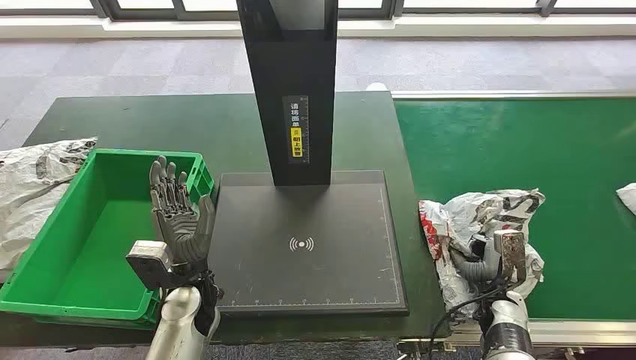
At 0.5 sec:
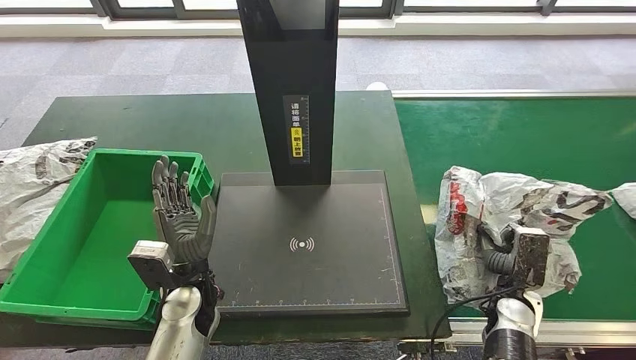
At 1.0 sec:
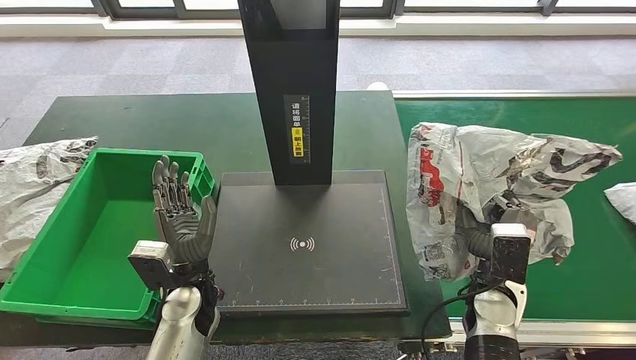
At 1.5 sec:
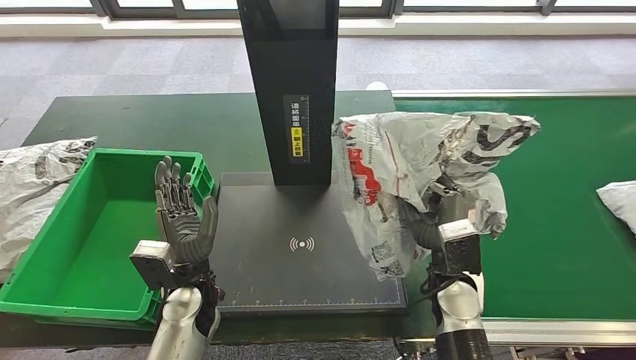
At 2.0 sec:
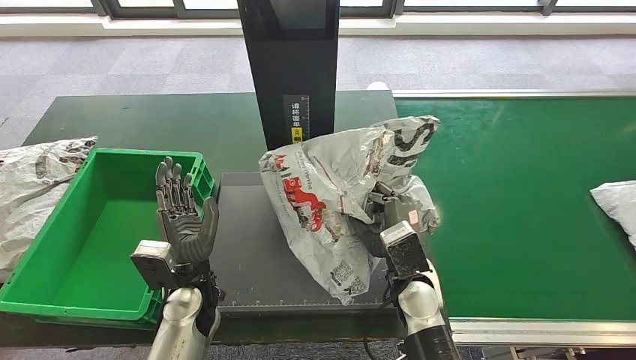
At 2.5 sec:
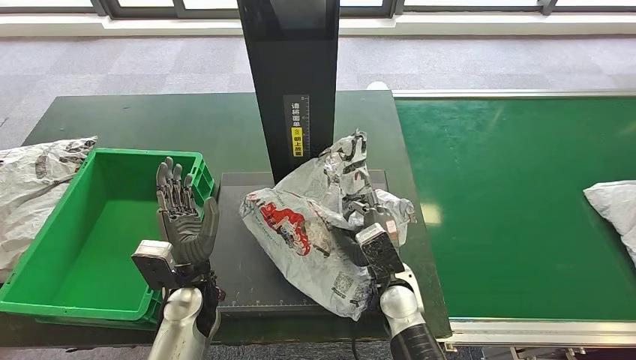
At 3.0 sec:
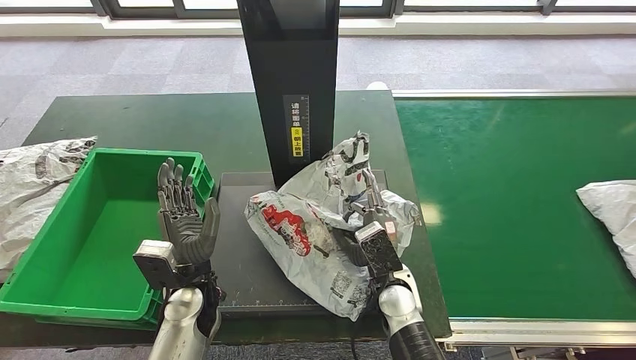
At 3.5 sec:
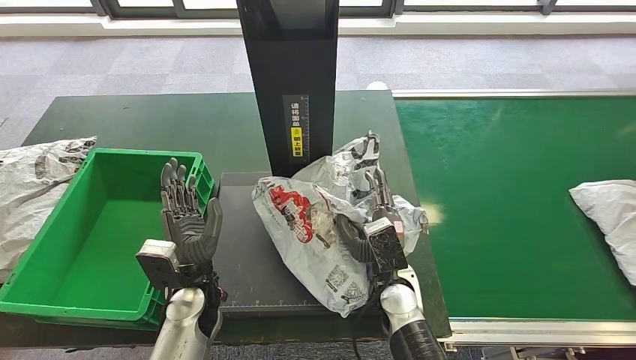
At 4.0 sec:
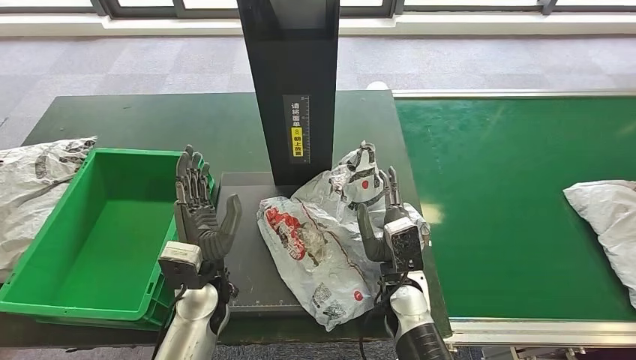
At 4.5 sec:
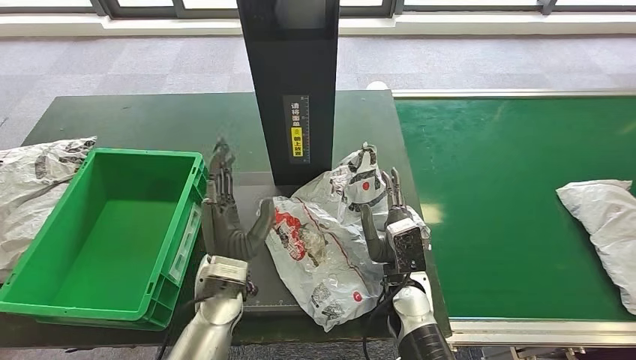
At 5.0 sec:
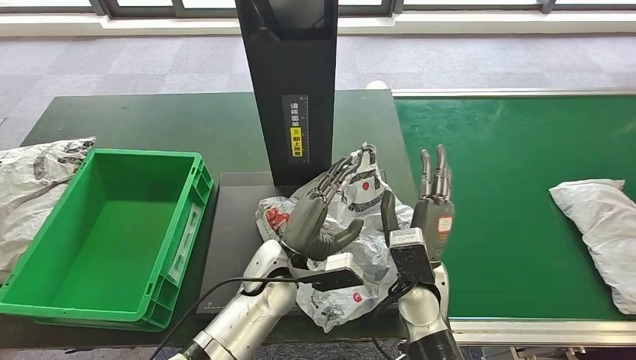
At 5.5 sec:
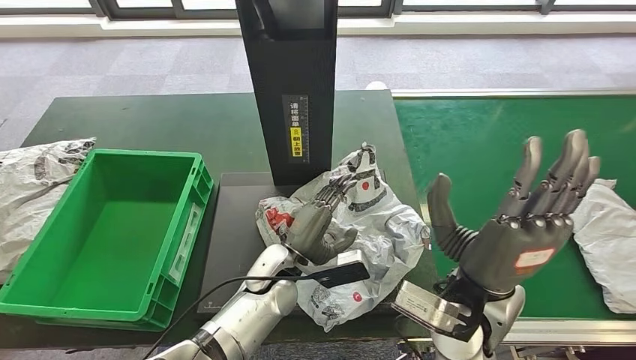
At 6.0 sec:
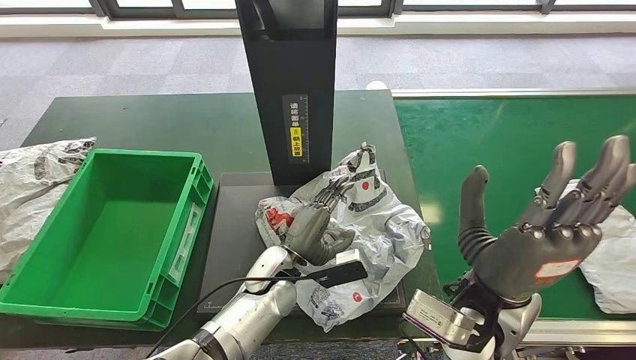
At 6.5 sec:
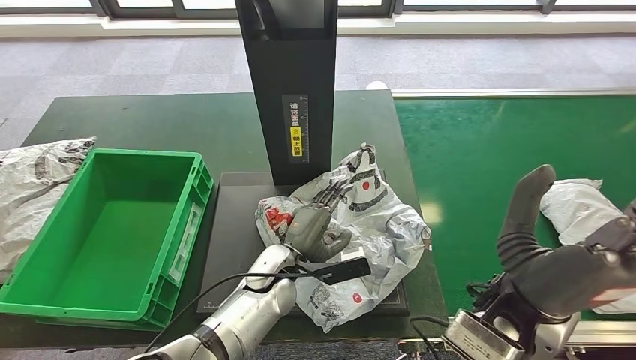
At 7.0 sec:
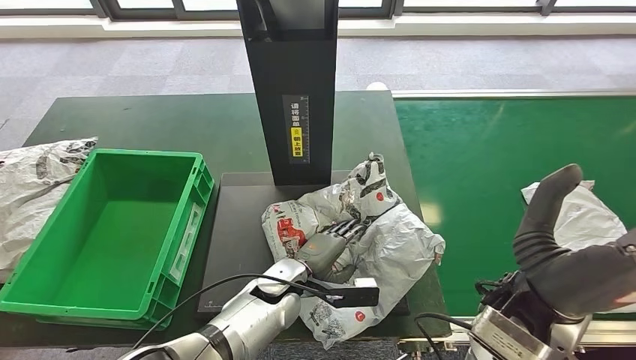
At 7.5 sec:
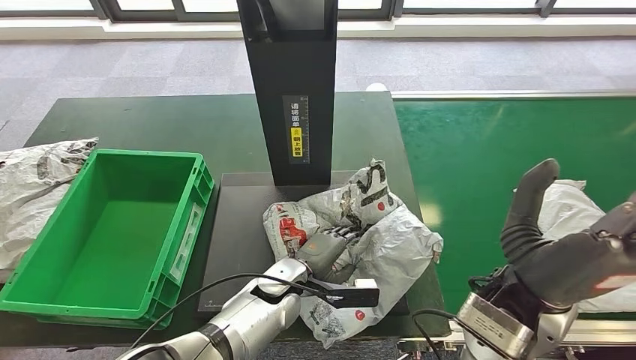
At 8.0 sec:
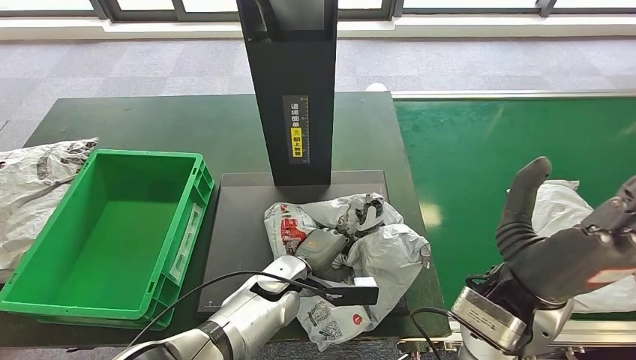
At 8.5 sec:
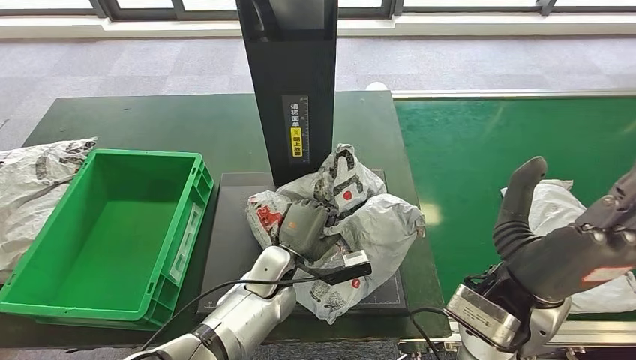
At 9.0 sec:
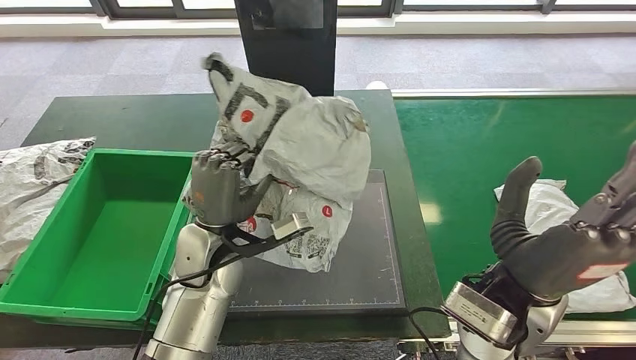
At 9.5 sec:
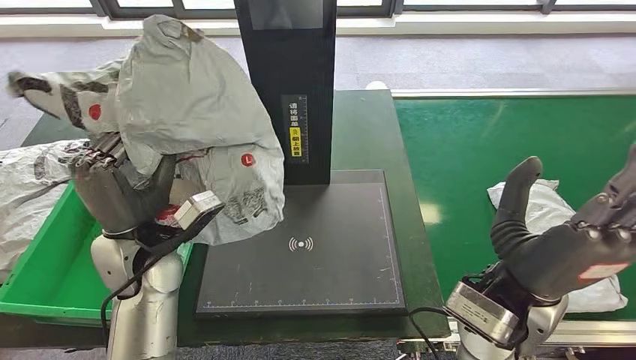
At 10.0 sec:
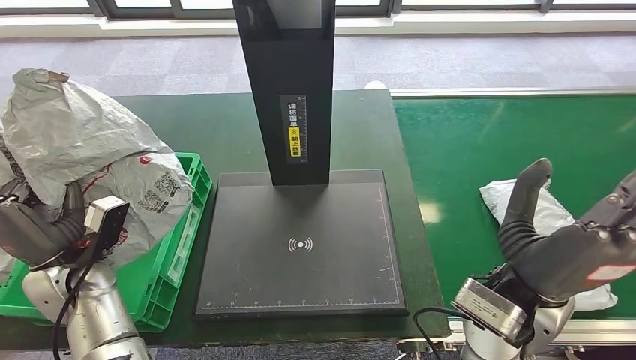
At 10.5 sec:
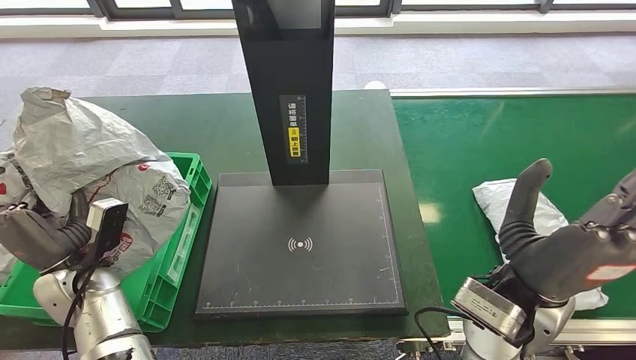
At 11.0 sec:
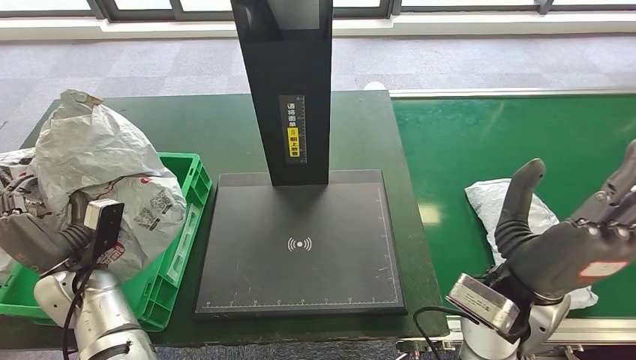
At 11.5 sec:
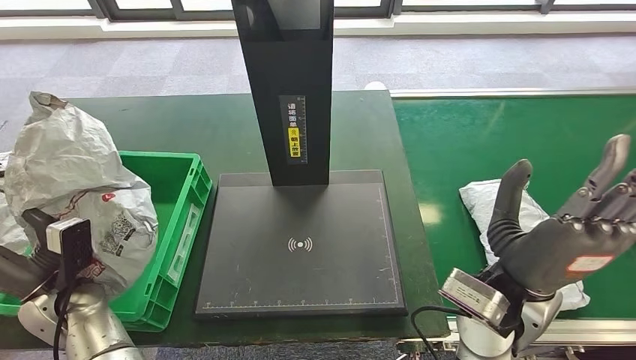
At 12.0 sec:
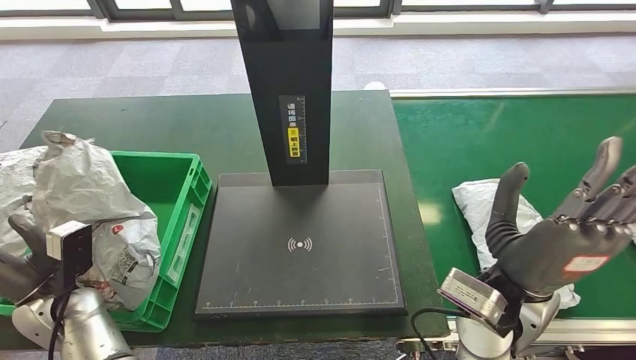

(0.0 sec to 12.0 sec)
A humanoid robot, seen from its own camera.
Step, 0.0 sec - 1.0 sec: Take the parcel off the conveyor belt.
Step, 1.5 sec - 4.5 sec: Place the parcel onto the inbound machine.
Step, 5.0 sec - 8.5 sec: Pick up the parcel from the inbound machine.
2.0 sec - 4.0 sec: The hands move only a little.

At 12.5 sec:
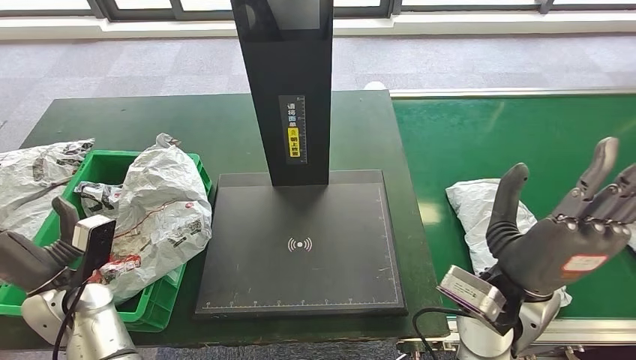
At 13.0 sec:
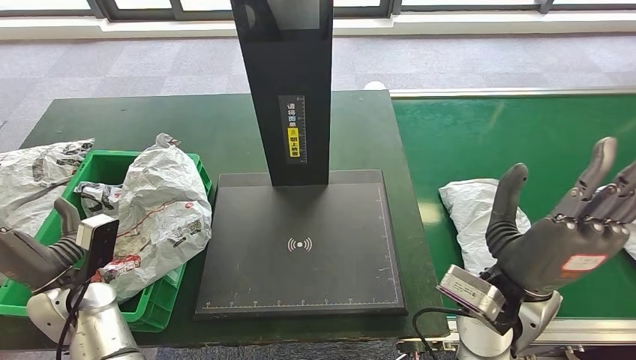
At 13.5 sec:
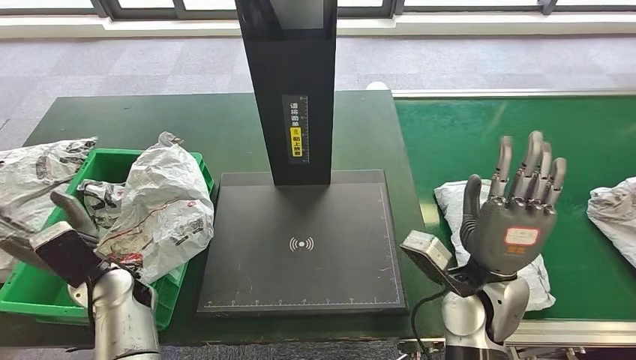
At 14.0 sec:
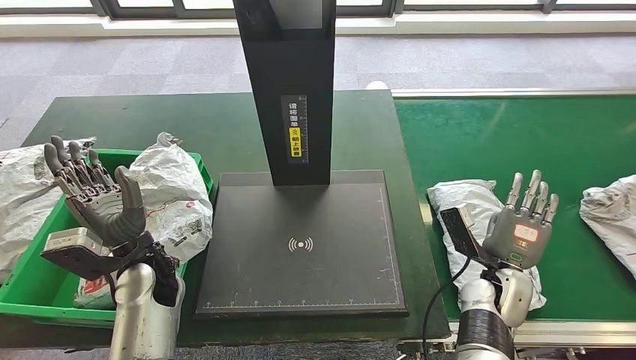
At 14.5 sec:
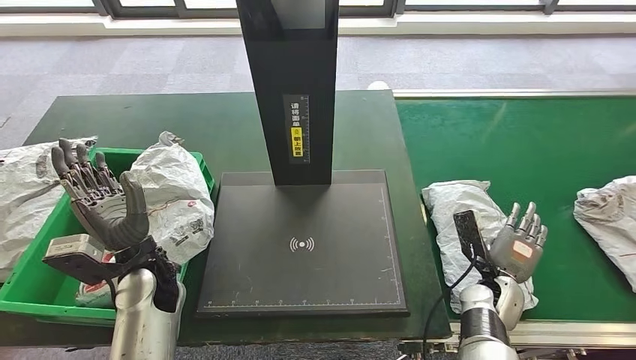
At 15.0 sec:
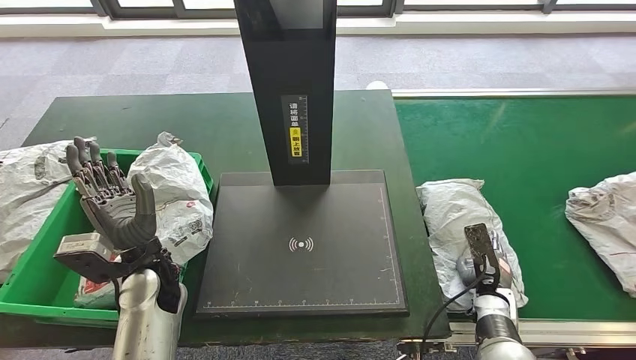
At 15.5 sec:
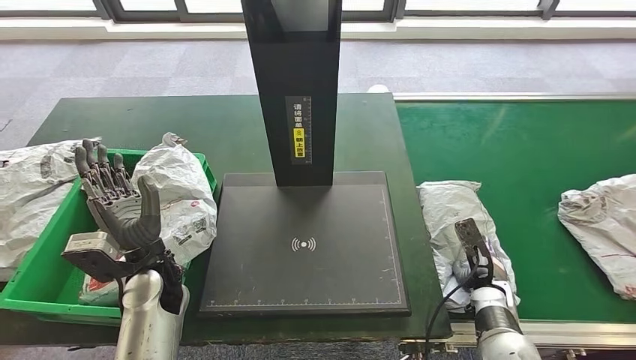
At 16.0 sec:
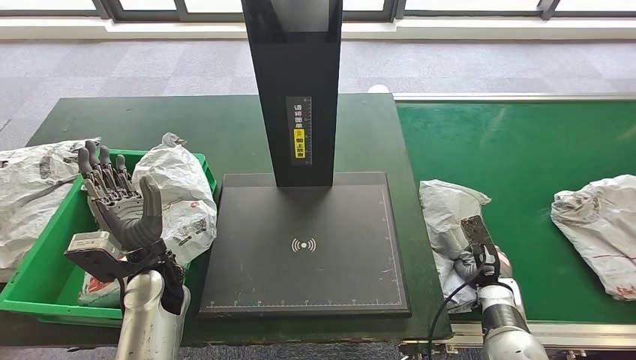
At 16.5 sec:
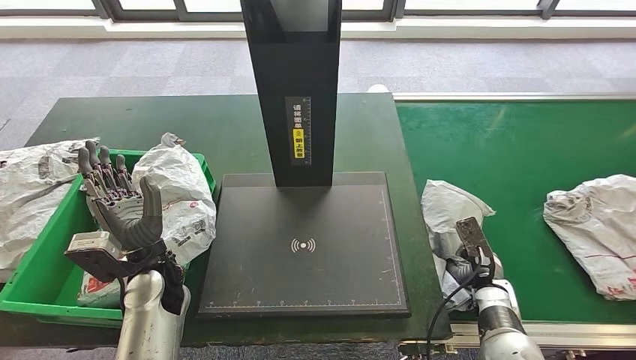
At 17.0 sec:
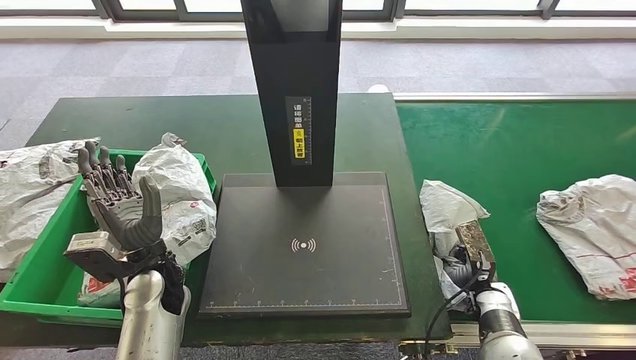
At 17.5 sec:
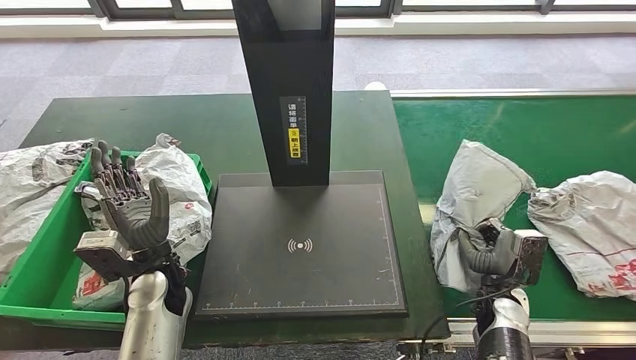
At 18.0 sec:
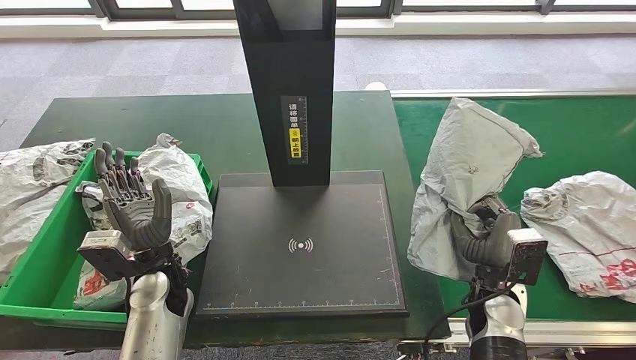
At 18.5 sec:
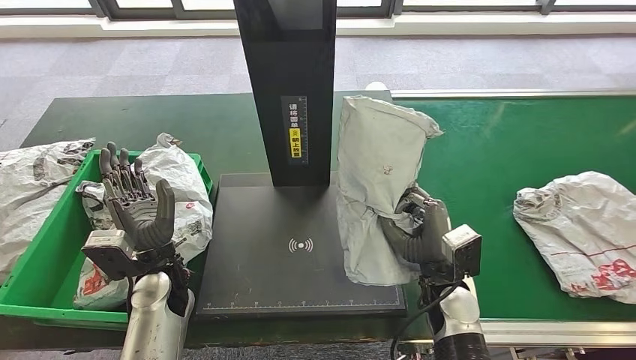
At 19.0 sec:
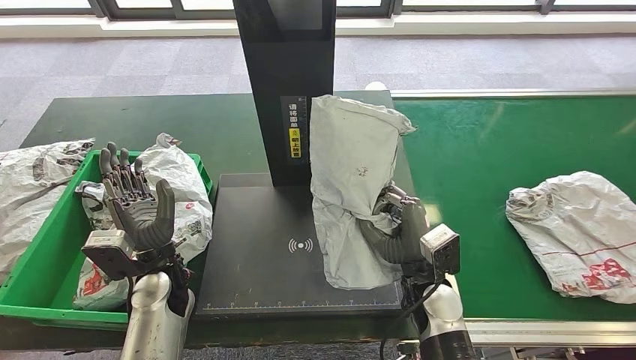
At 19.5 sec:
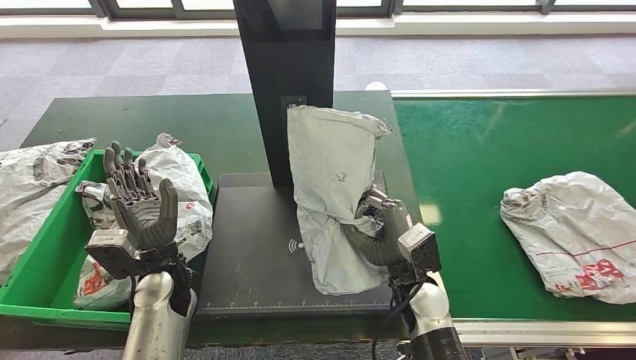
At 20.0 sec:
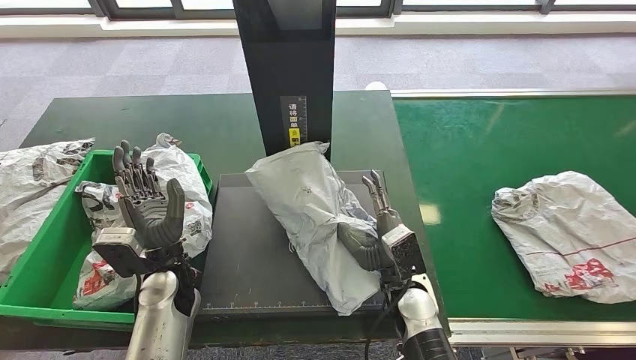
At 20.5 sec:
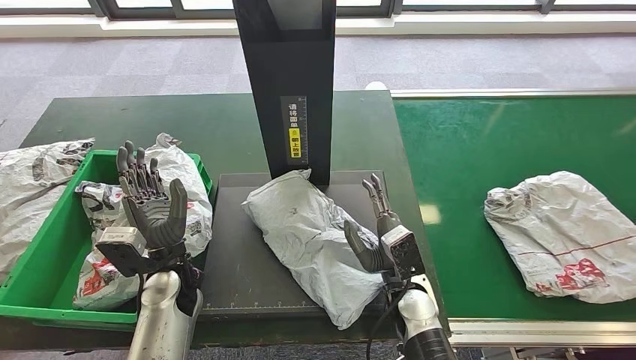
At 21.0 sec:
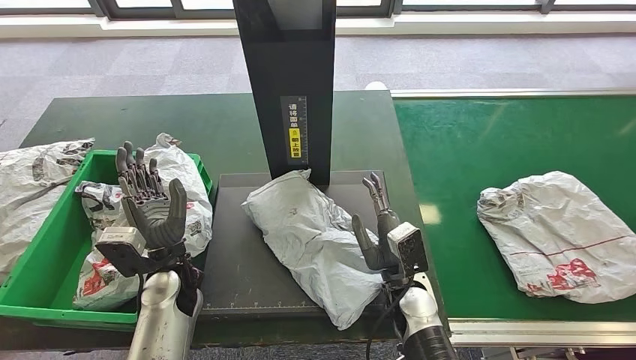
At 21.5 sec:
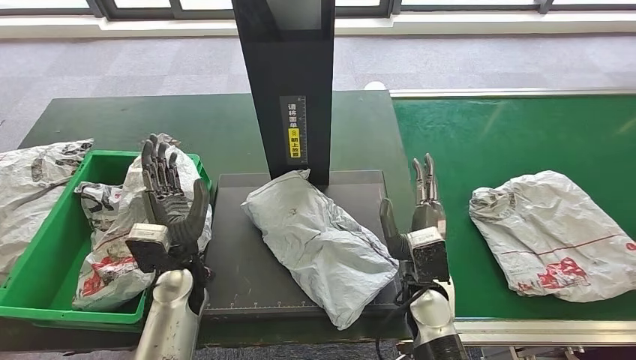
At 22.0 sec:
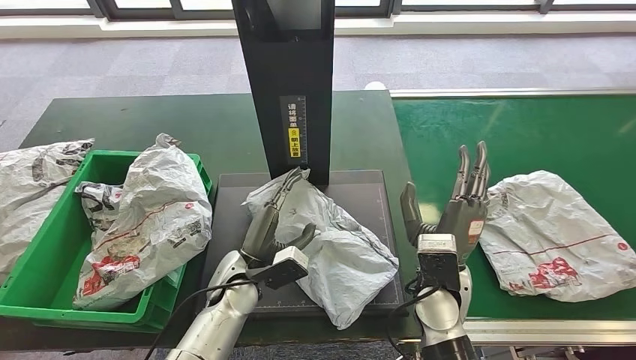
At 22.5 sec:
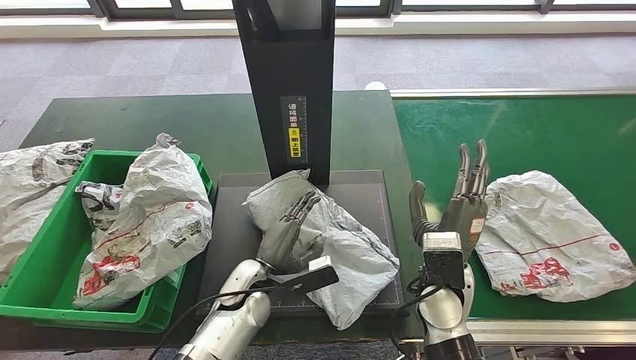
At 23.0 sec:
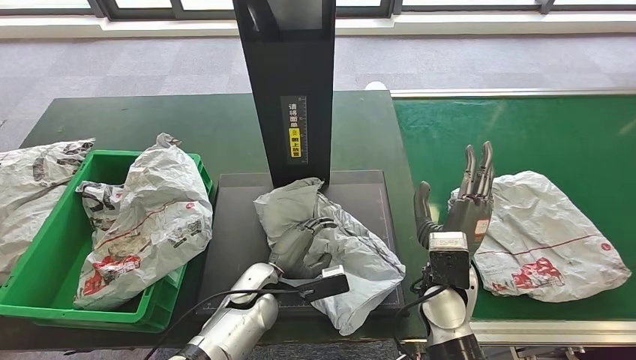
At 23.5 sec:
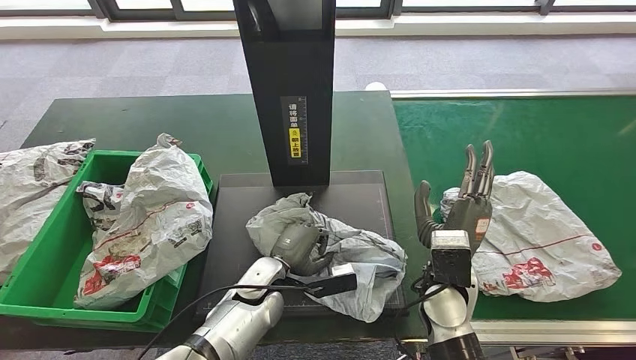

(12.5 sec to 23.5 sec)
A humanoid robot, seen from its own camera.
Step, 17.5 sec - 18.5 sec: Pick up the parcel from the conveyor belt.
Step, 19.0 sec - 21.5 sec: Place the parcel onto the inbound machine.
